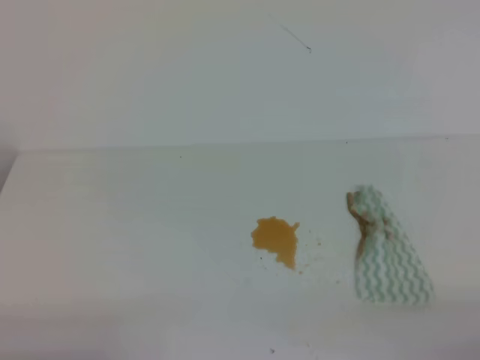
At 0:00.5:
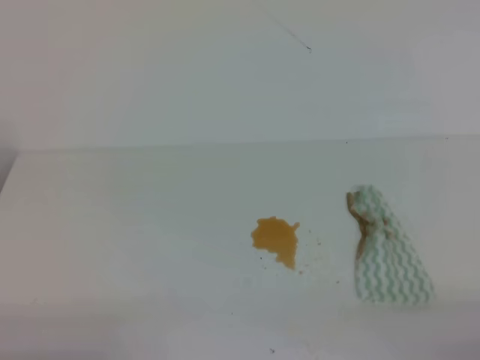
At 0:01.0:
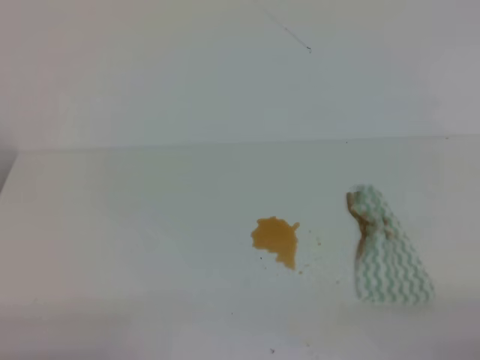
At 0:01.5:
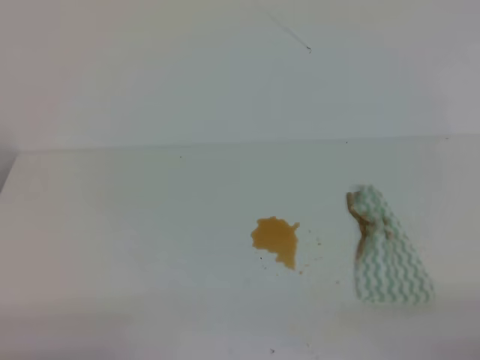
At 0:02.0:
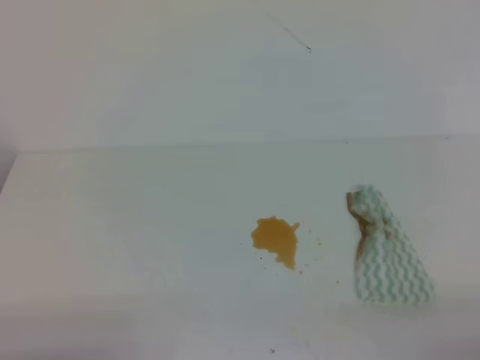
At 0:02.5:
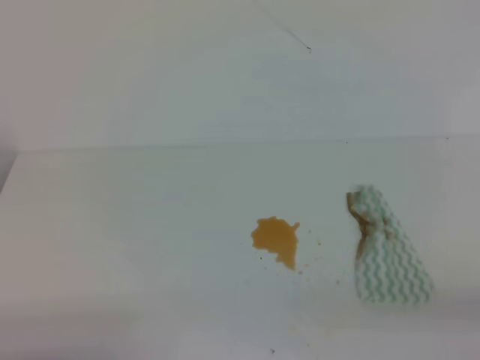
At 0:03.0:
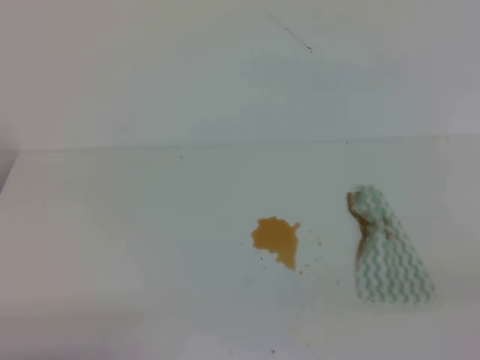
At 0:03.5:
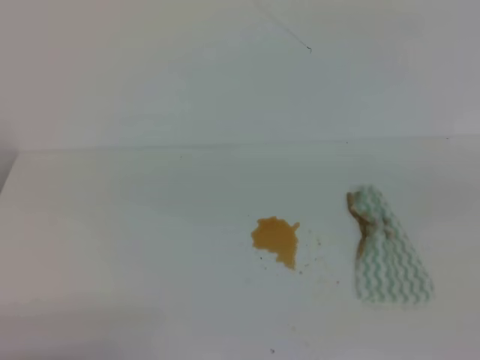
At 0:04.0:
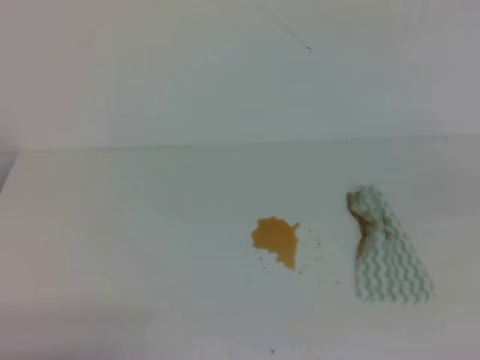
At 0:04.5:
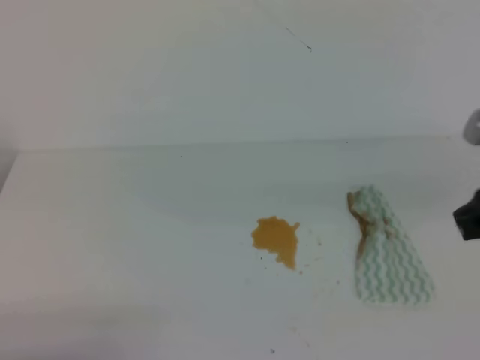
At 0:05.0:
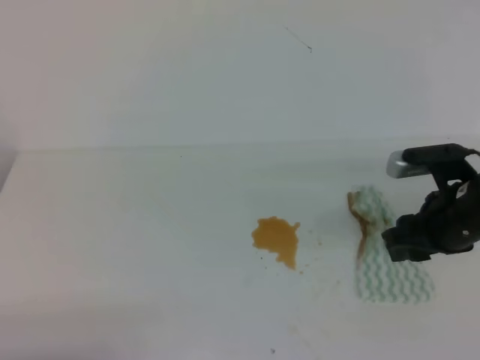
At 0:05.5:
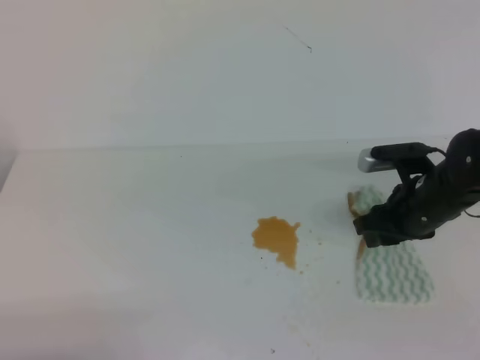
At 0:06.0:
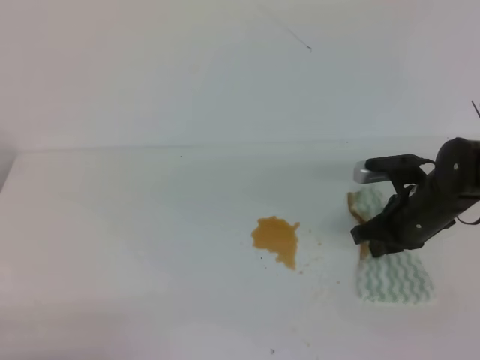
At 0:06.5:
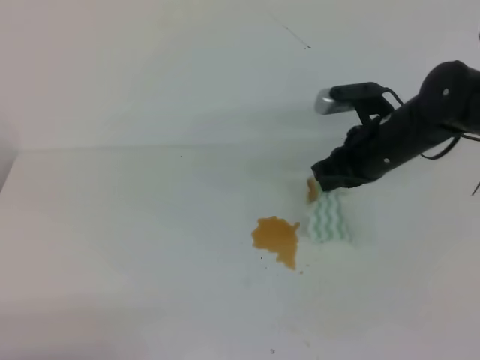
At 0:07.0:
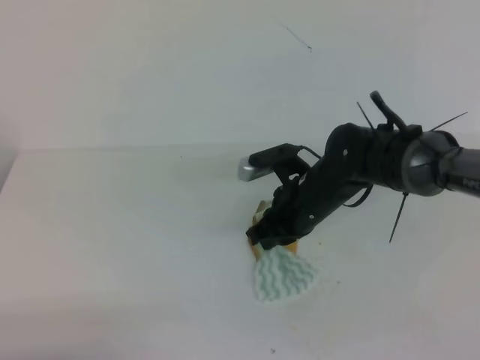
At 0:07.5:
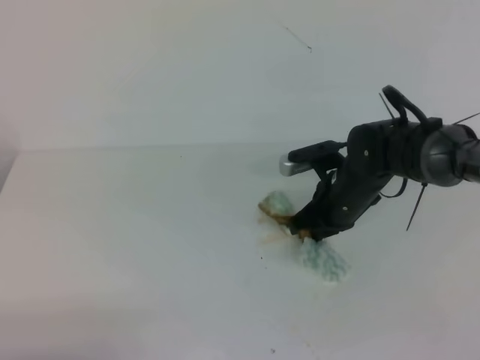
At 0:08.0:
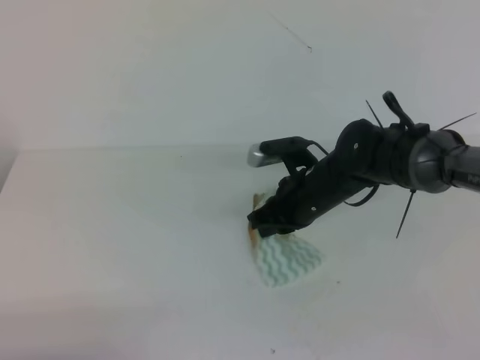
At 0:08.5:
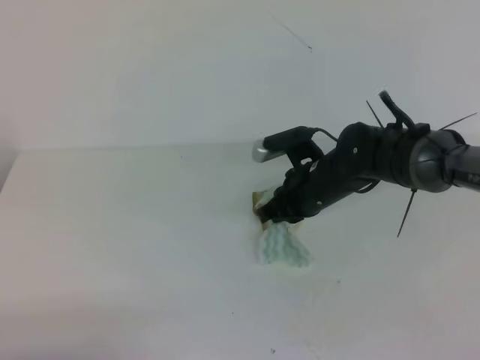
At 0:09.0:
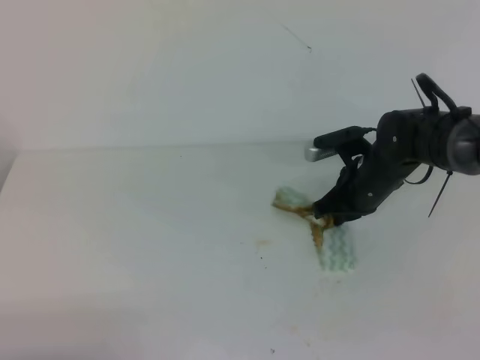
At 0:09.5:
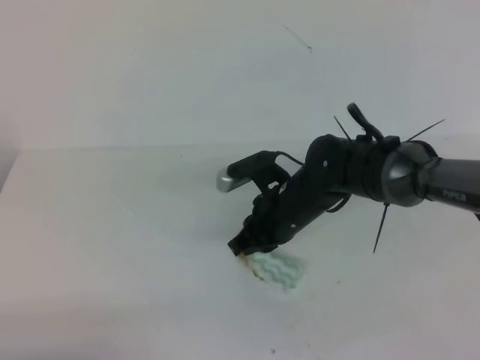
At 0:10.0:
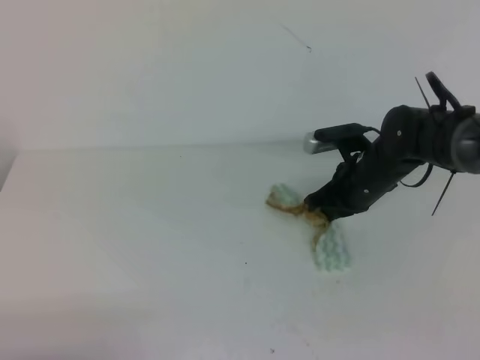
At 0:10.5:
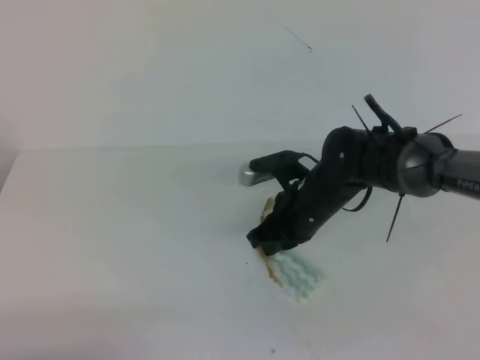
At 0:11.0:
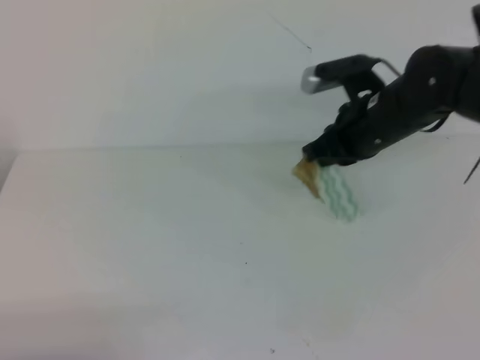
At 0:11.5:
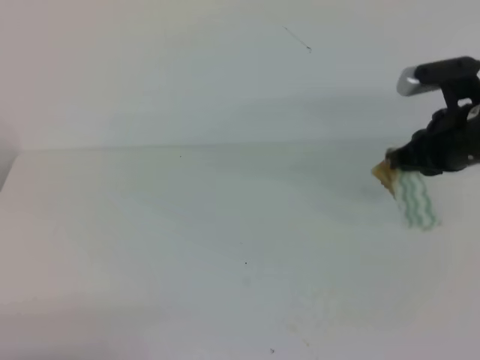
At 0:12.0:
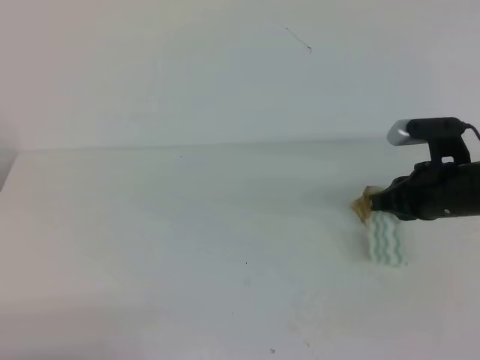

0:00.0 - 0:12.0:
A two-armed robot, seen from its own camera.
0:00.0 - 0:02.0: Both grippers stay put.
0:04.0 - 0:06.0: The right gripper travels downward, forward and to the left by approximately 30 cm, and opens, then closes again.
0:06.0 - 0:08.0: The right gripper shifts approximately 10 cm to the left.
0:08.0 - 0:10.0: The right gripper swings left and right, about 5 cm each way, with 2 reversals.
0:10.0 - 0:12.0: The right gripper is displaced to the right and backward by roughly 10 cm.

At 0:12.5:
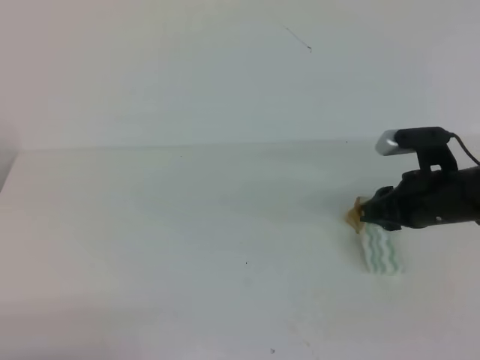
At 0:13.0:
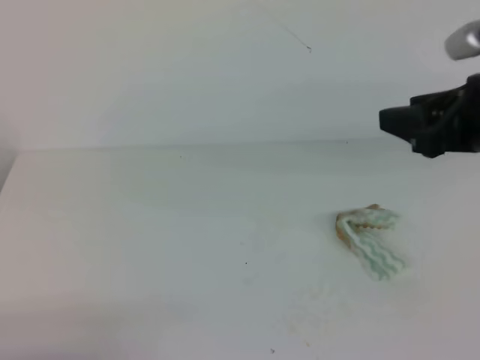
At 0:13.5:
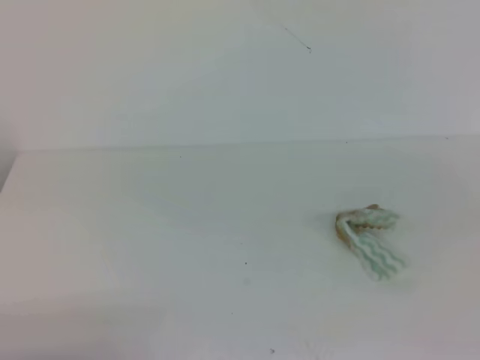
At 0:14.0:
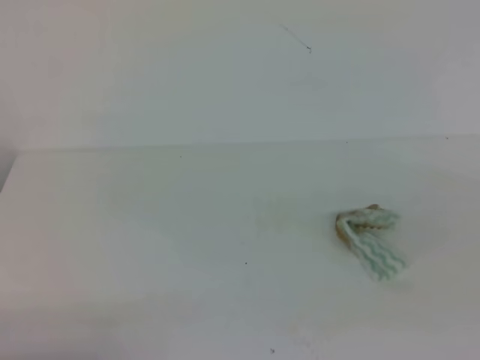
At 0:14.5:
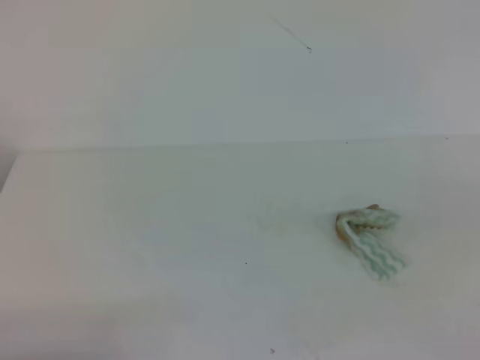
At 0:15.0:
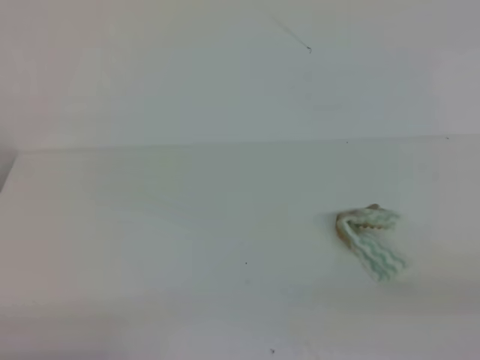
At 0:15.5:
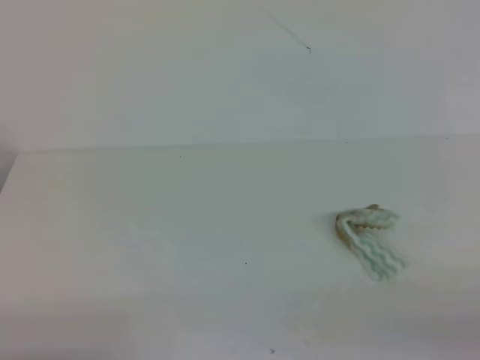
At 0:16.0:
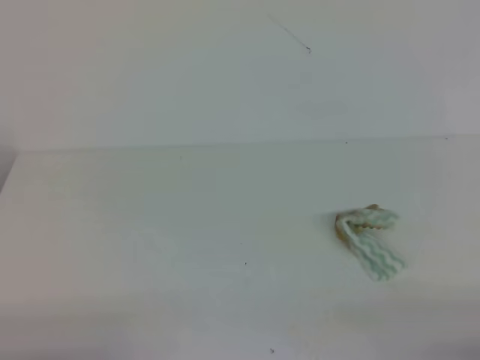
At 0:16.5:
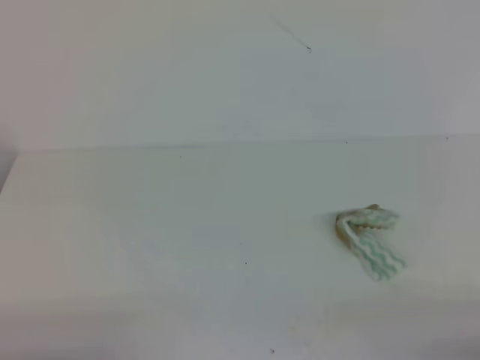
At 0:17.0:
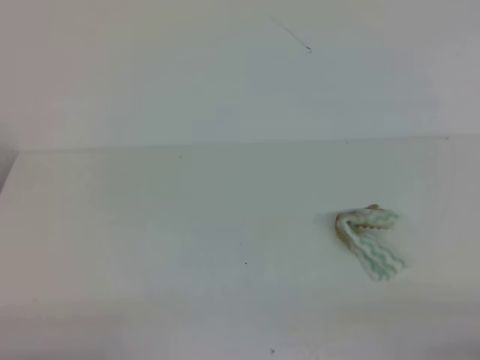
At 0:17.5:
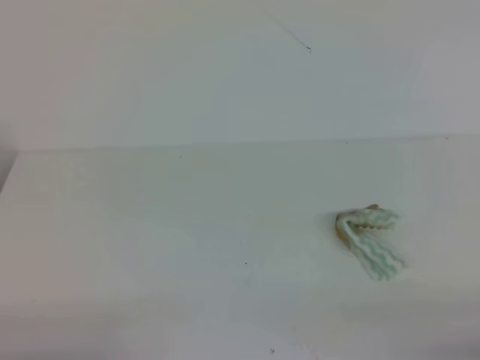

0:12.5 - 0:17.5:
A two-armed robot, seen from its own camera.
0:12.5 - 0:15.0: The right gripper is displaced backward by roughly 30 cm, and closes.
